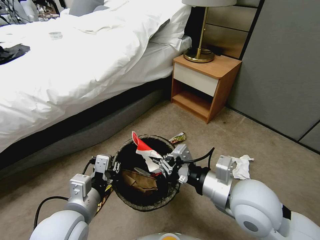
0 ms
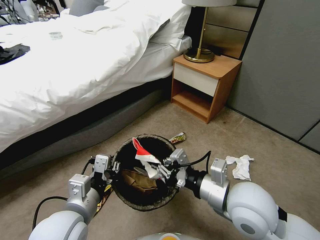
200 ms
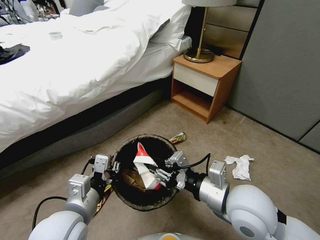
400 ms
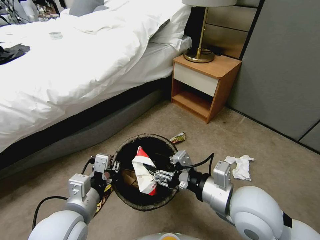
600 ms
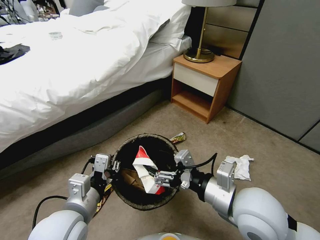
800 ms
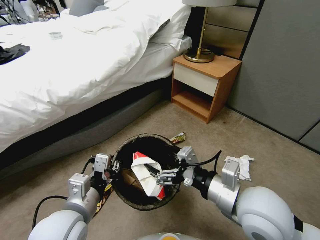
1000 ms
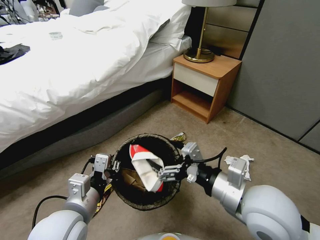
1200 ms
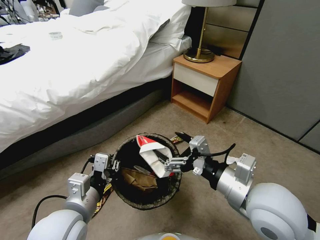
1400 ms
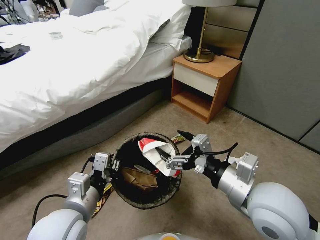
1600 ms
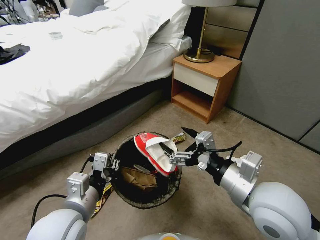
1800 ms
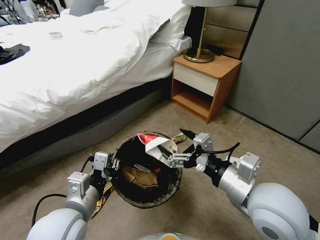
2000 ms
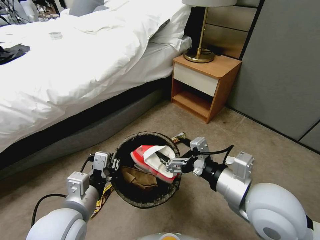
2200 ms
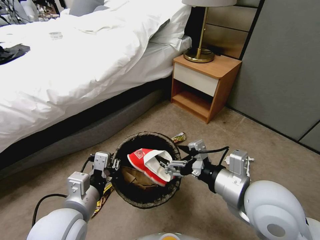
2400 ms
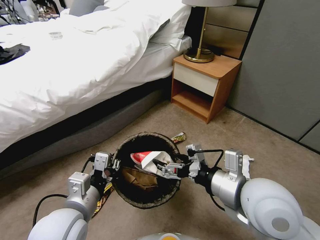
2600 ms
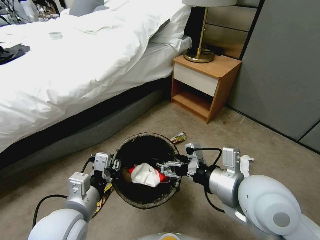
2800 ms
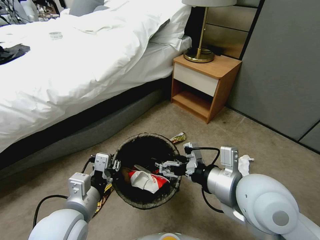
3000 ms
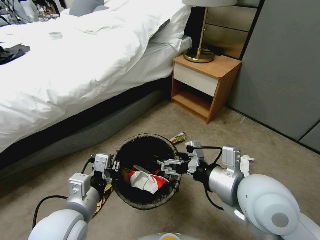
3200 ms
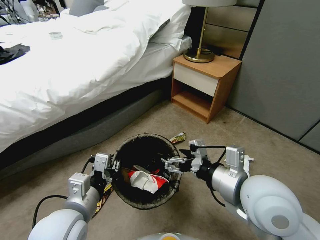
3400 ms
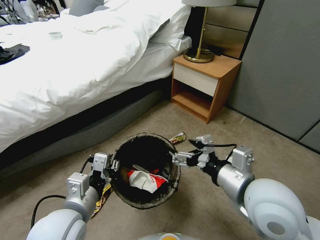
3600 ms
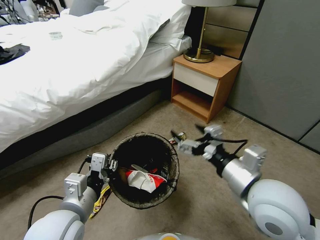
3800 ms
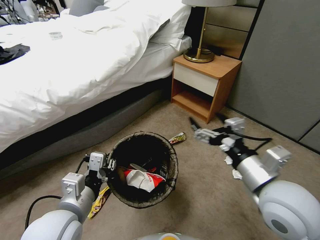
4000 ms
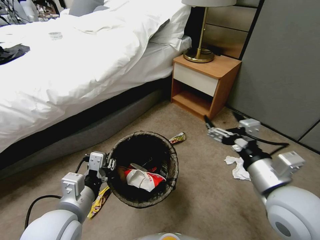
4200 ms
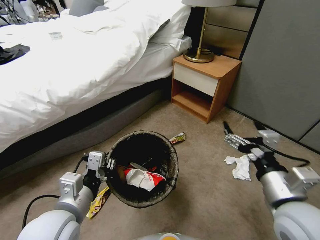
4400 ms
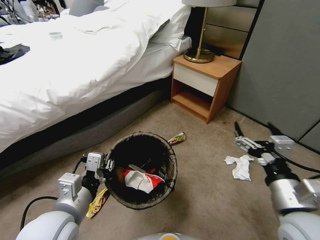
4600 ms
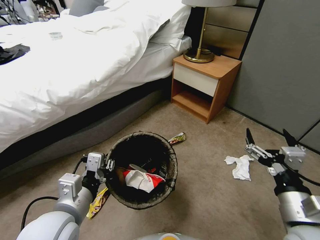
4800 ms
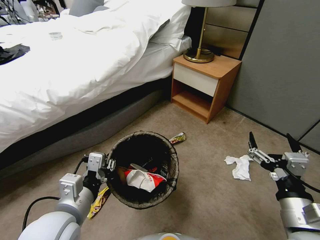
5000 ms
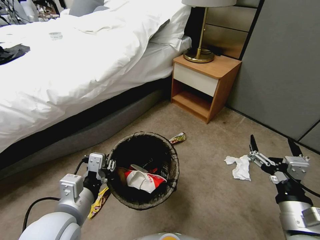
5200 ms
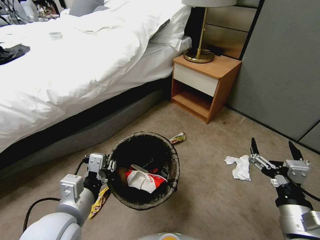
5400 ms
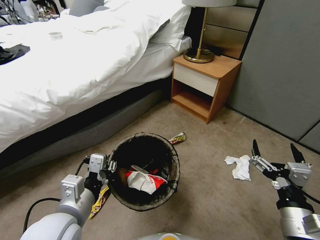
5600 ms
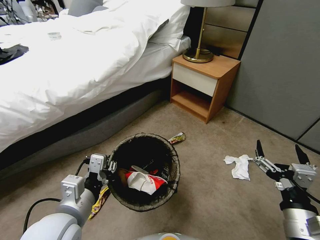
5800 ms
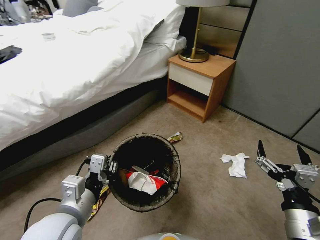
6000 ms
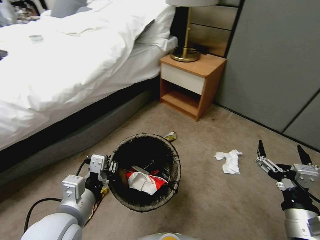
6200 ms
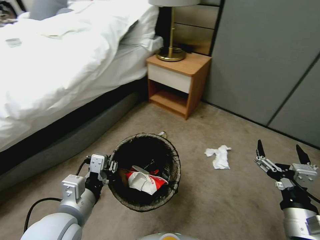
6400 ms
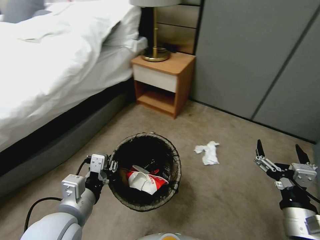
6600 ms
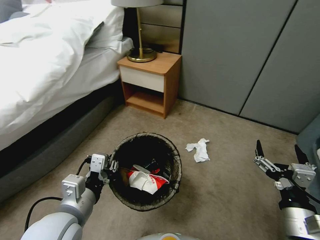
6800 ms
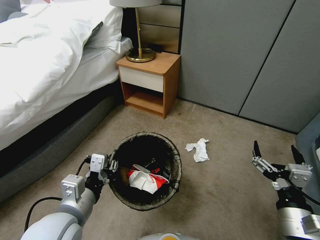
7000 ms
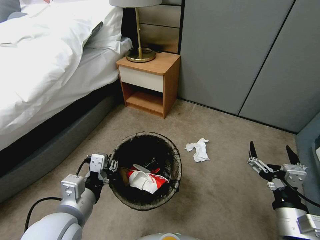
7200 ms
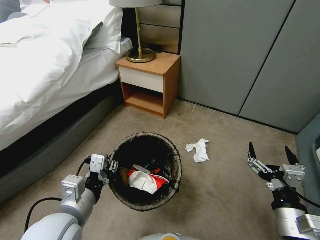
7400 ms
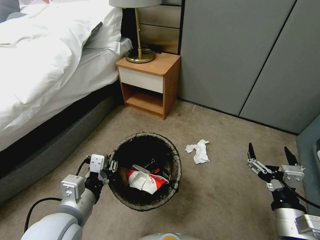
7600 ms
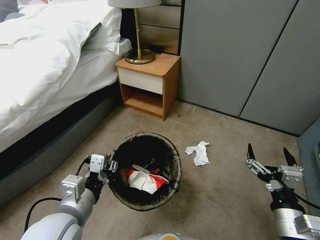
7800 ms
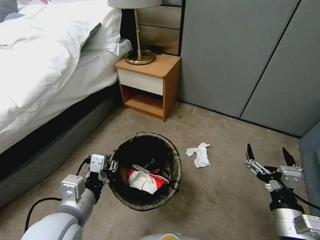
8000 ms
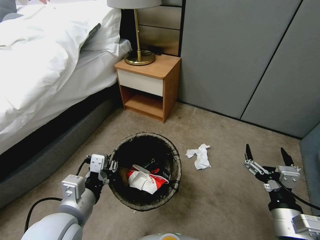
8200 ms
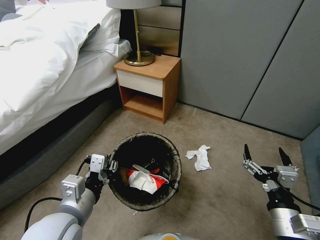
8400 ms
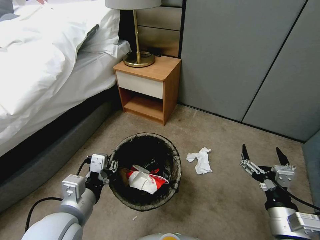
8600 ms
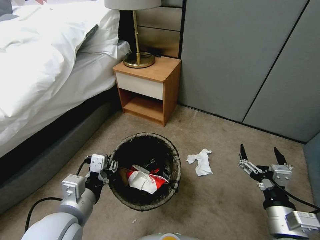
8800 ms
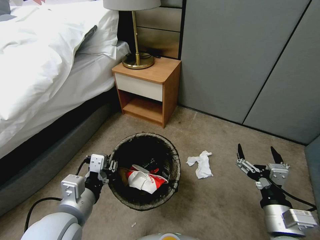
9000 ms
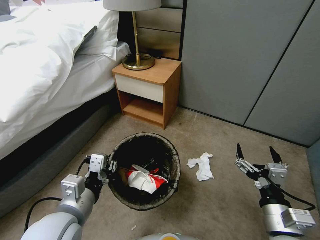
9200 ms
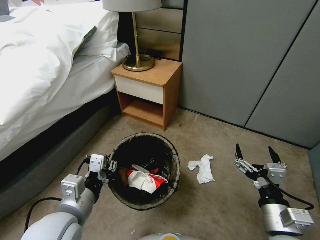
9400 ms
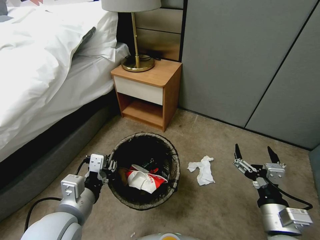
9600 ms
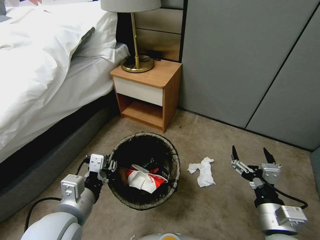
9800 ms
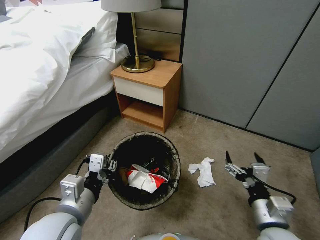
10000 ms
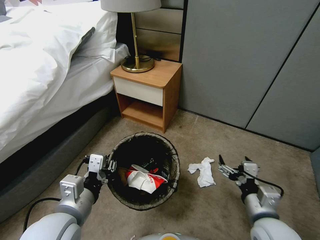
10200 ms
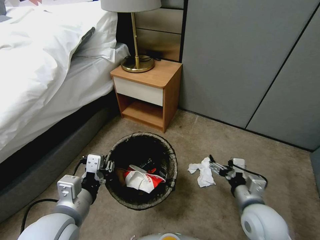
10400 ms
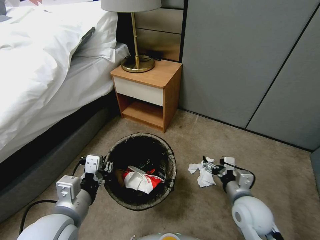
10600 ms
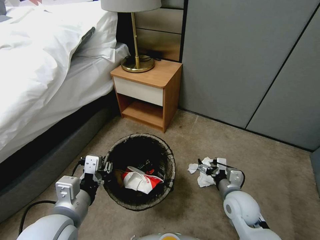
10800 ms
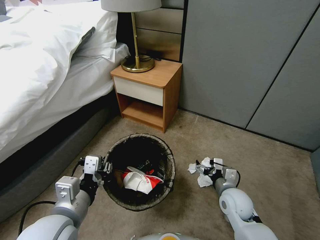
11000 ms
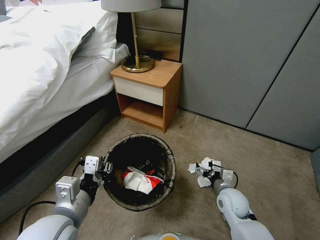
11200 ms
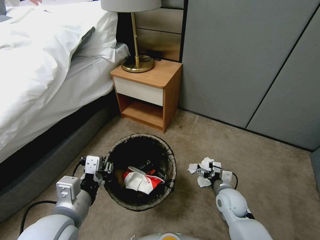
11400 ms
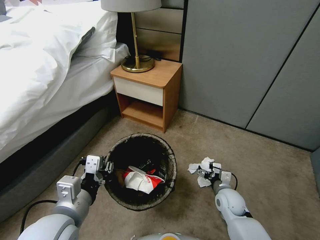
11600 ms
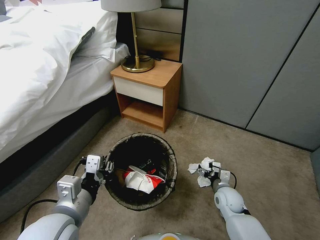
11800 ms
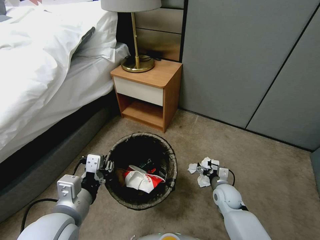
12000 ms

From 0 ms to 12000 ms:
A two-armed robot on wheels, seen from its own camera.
Task of the whole recording: Pick up the trash bin, then pick up the garbage from the floor and place it into the trash bin.
From 0 ms to 1600 ms: The right gripper opens its fingers.
From 3000 ms to 4400 ms: The right gripper is displaced to the right by approximately 10 cm.
From 4400 ms to 6000 ms: The right gripper shifts roughly 10 cm downward and backward.
From 9000 ms to 10400 ms: The right gripper moves forward, some 5 cm.
From 10400 ms to 12000 ms: The right gripper goes about 20 cm downward and forward.

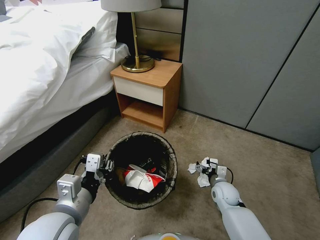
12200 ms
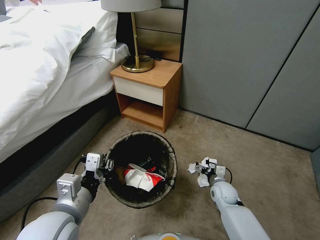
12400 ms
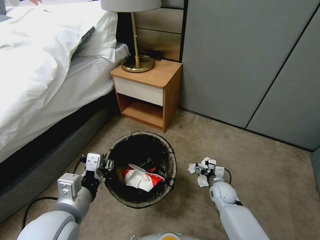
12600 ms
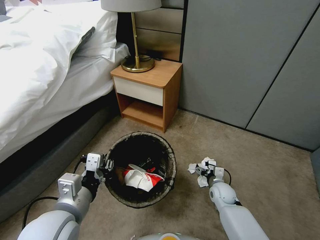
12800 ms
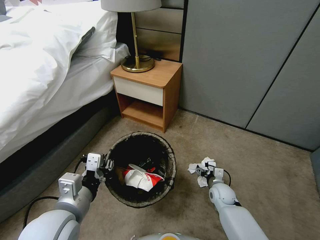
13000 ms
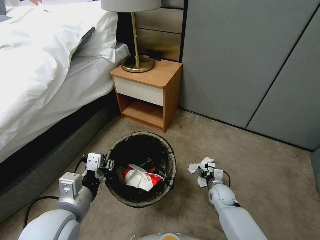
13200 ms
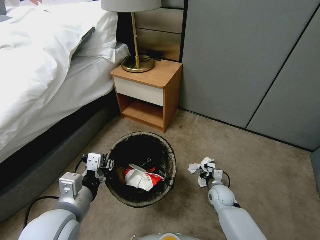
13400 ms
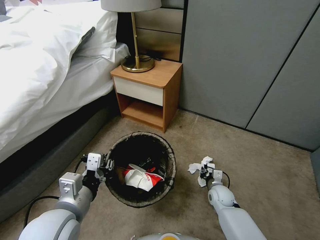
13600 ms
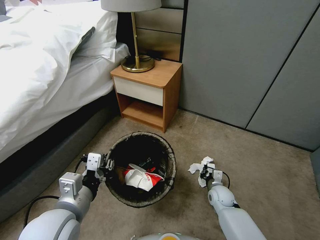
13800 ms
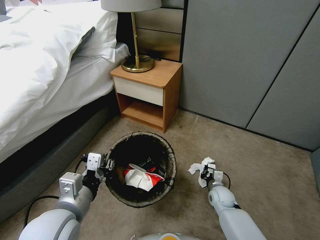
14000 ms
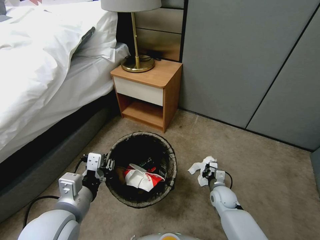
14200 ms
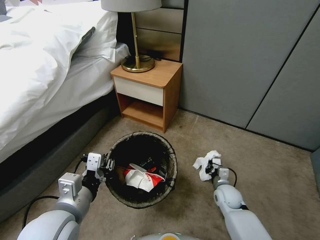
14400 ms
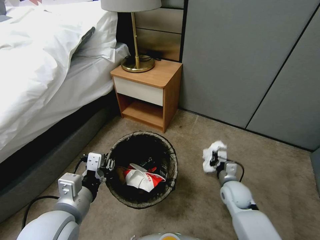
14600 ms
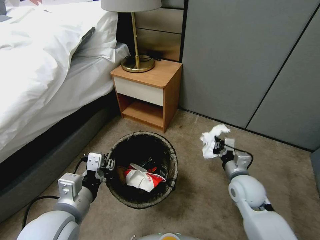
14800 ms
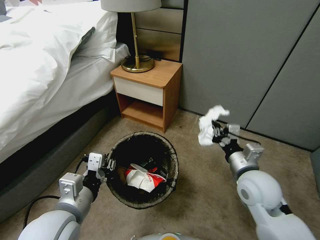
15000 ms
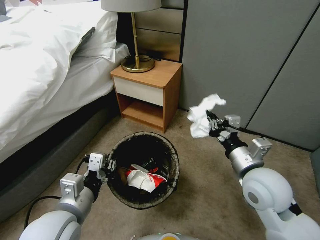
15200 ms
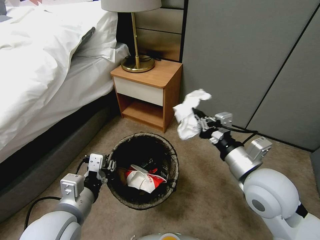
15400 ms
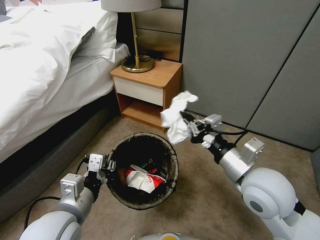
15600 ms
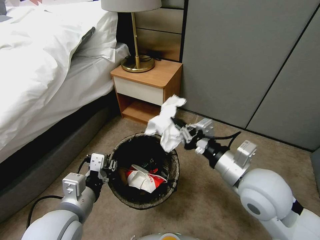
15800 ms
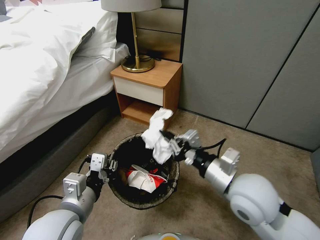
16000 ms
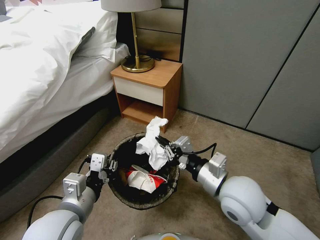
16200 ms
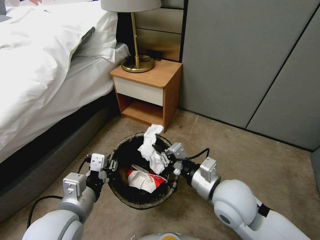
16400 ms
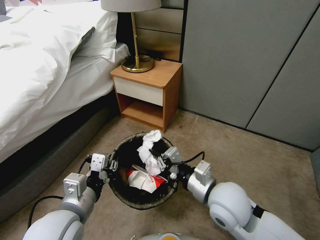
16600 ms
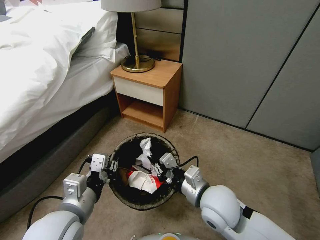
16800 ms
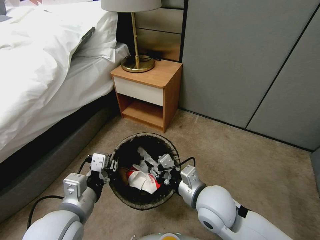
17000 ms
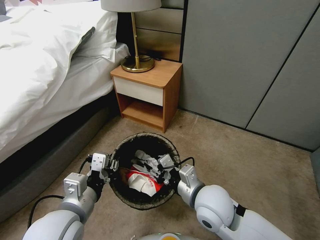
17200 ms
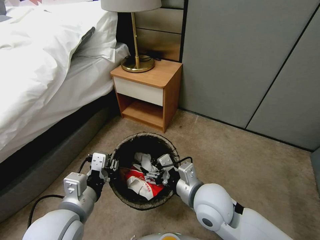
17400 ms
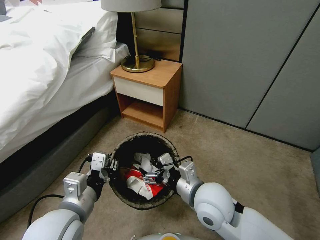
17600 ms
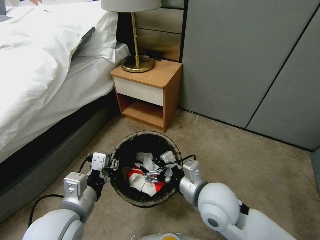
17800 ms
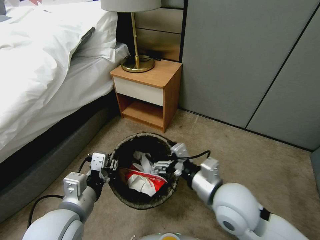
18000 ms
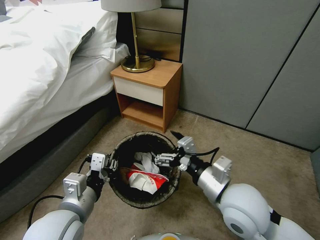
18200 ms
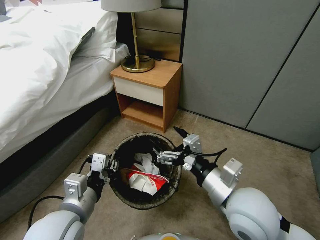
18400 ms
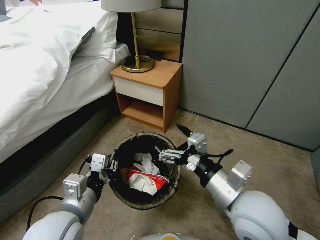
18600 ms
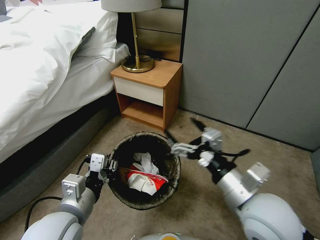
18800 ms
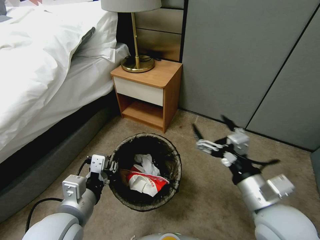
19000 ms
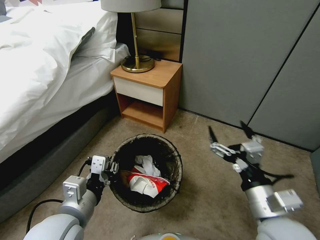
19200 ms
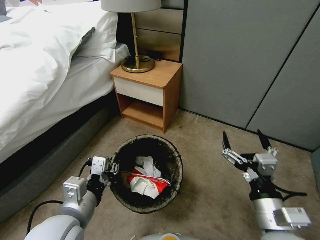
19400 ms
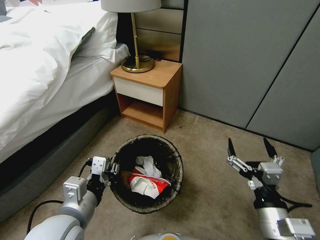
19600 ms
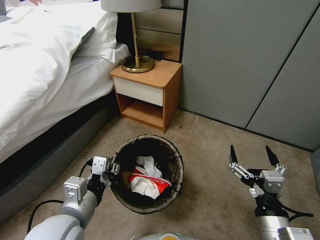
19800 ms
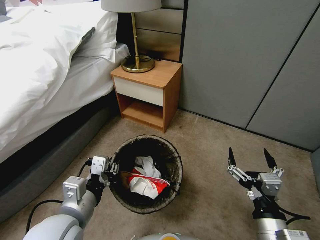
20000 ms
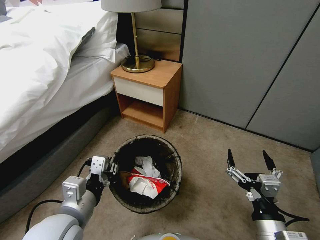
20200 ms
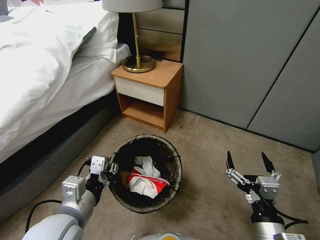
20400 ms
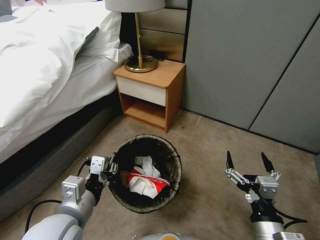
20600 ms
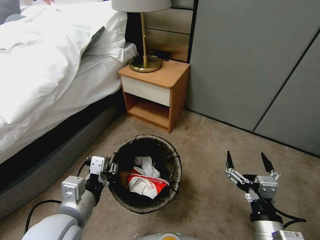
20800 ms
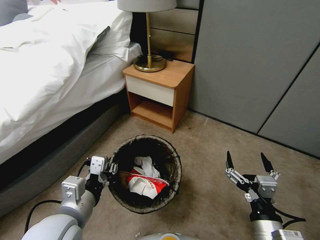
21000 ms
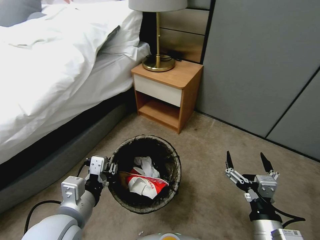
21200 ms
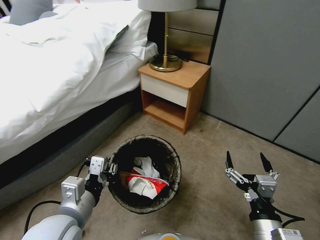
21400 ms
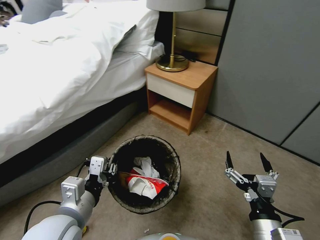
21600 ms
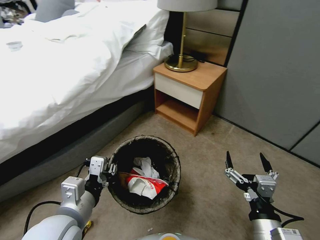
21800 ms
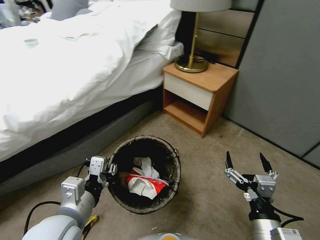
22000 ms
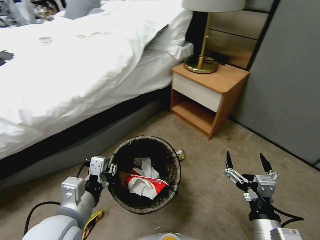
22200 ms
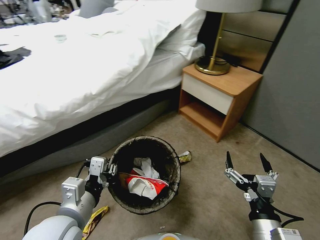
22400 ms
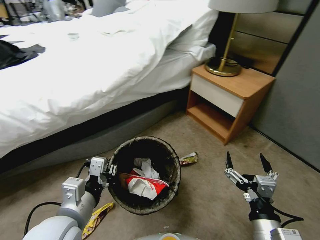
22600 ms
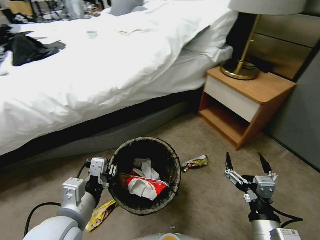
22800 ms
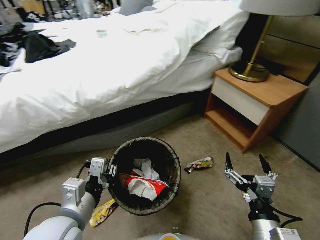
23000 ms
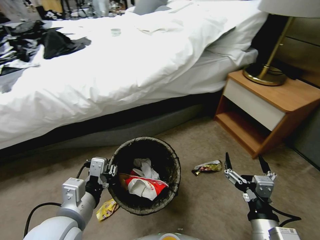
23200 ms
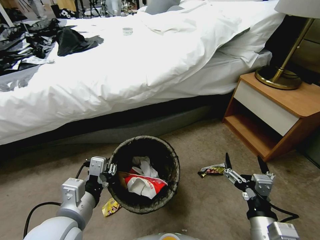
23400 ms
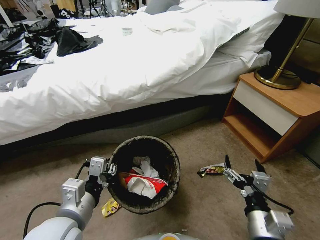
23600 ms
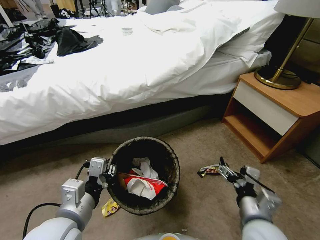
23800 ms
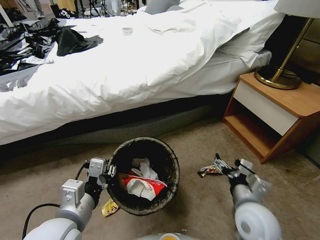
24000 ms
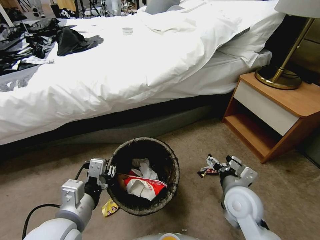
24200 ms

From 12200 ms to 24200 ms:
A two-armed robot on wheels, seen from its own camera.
Task of the whole recording: Pick up the trash bin, then pick up the garbage from the floor and place it into the trash bin.
From 12200 ms to 13800 ms: The right gripper closes its fingers.
From 13800 ms to 15200 ms: The right gripper goes roughly 30 cm upward.
From 15200 ms to 16600 ms: The right gripper shifts about 10 cm to the left.
From 16600 ms to 18200 ms: The right gripper moves some 5 cm, and opens.
From 18200 ms to 19800 ms: The right gripper moves backward, to the right and downward, about 15 cm.
From 22600 ms to 24200 ms: The right gripper travels forward by approximately 15 cm.
